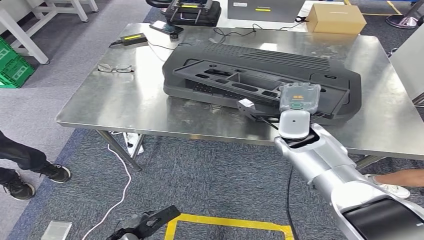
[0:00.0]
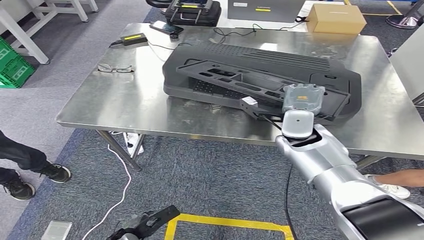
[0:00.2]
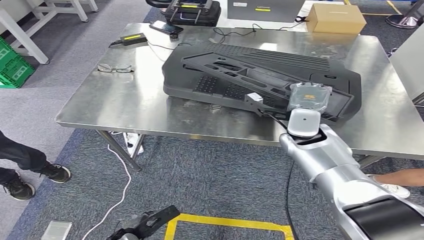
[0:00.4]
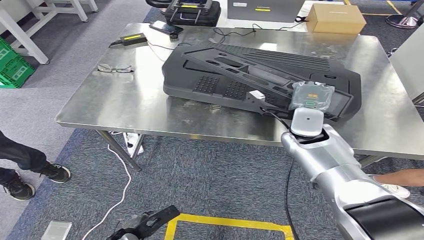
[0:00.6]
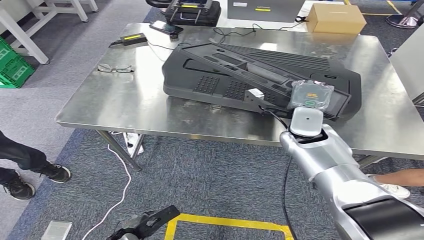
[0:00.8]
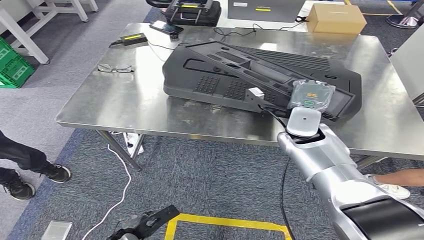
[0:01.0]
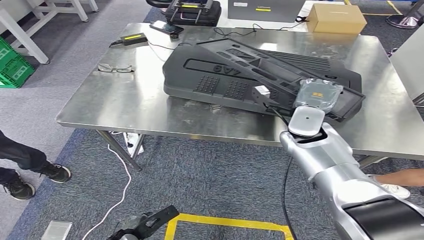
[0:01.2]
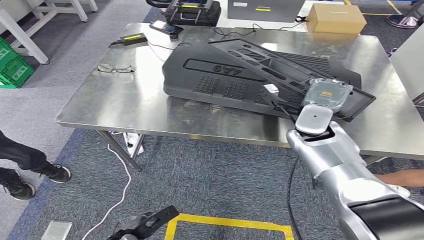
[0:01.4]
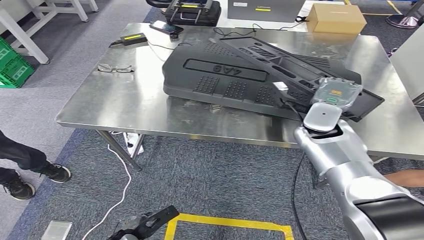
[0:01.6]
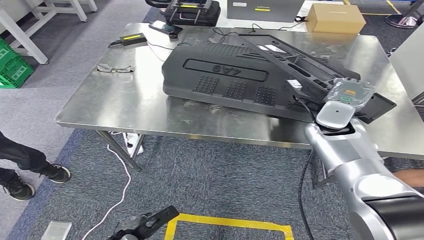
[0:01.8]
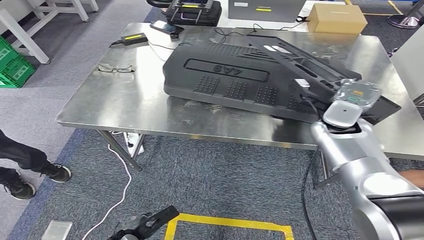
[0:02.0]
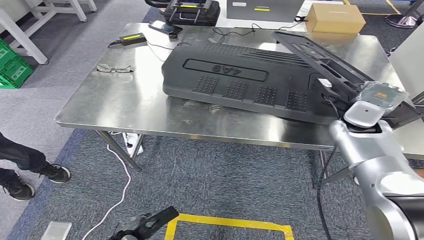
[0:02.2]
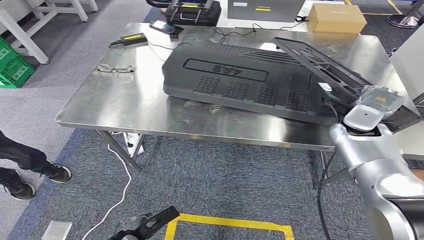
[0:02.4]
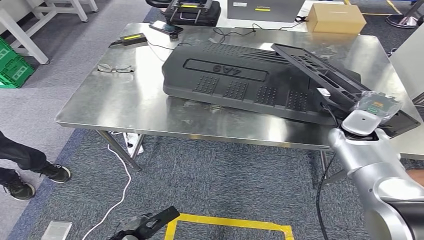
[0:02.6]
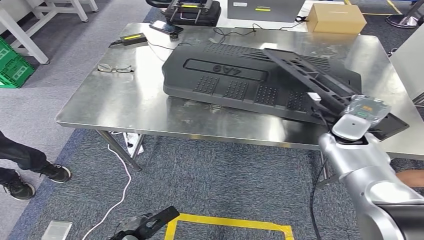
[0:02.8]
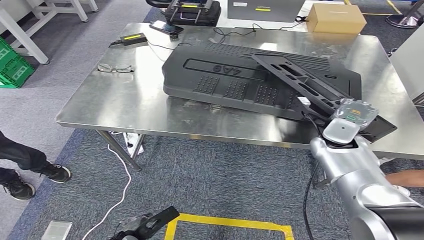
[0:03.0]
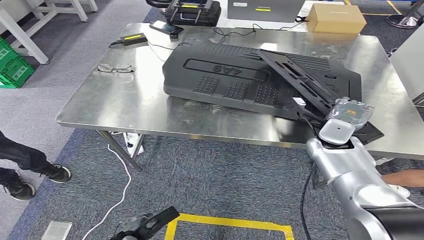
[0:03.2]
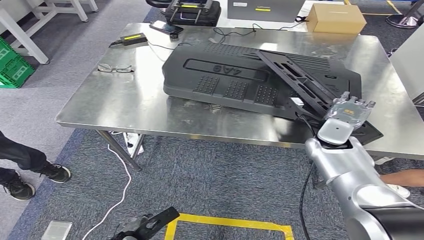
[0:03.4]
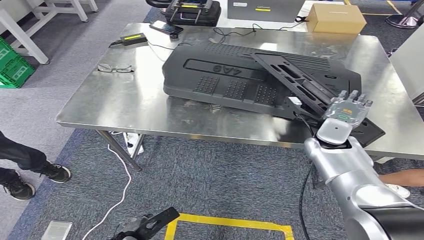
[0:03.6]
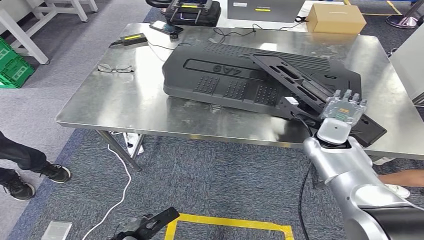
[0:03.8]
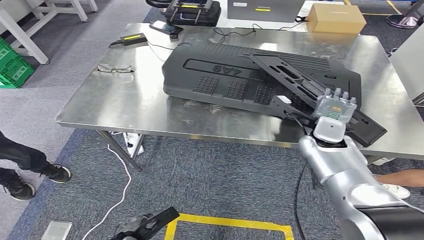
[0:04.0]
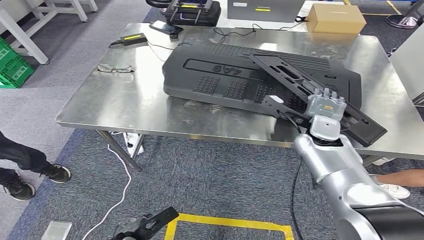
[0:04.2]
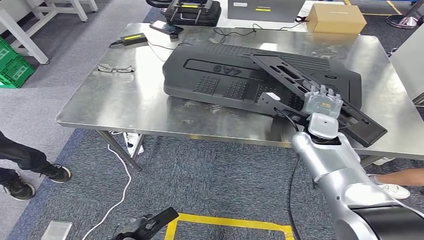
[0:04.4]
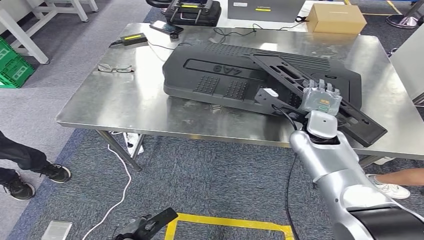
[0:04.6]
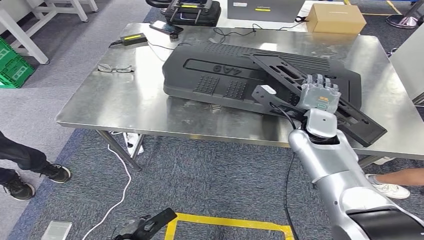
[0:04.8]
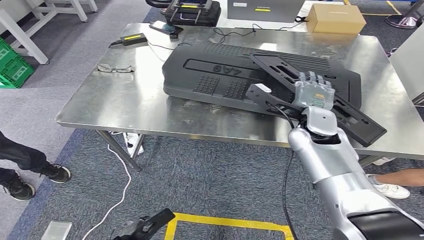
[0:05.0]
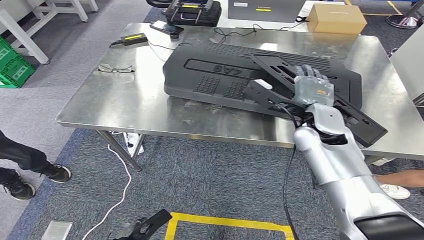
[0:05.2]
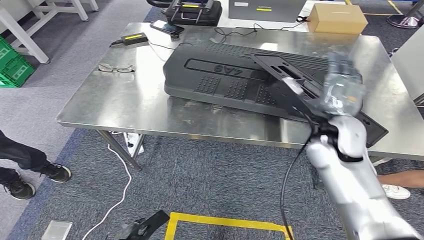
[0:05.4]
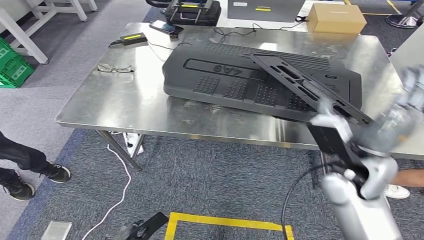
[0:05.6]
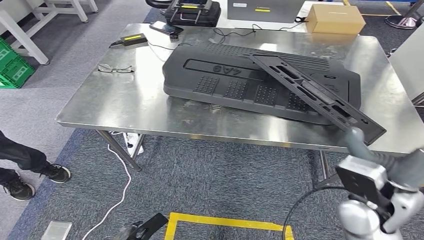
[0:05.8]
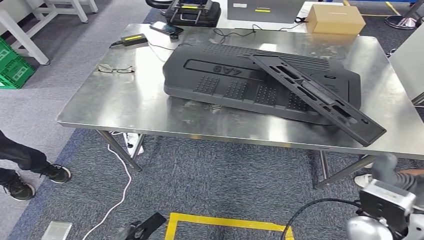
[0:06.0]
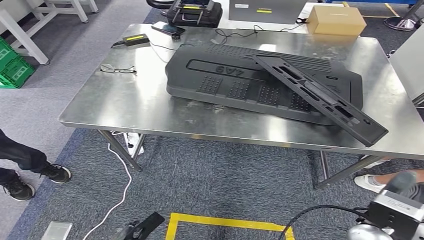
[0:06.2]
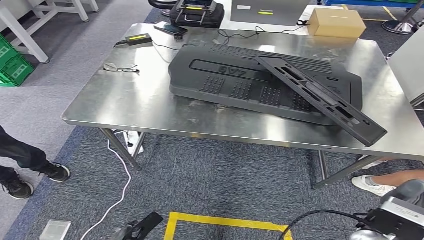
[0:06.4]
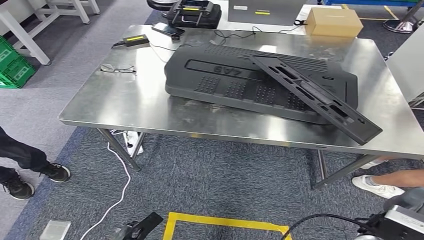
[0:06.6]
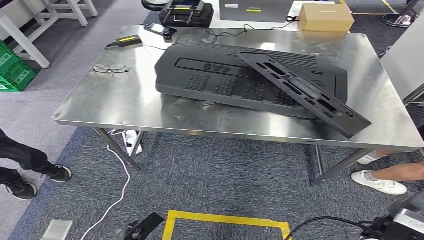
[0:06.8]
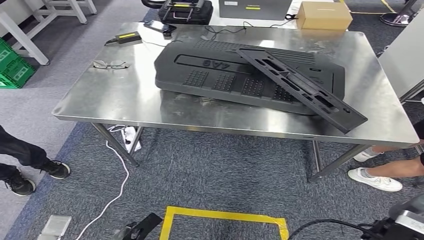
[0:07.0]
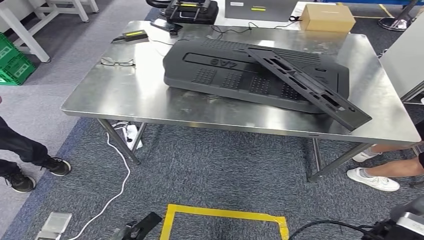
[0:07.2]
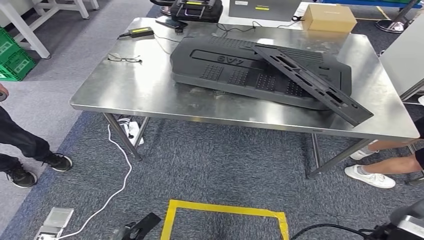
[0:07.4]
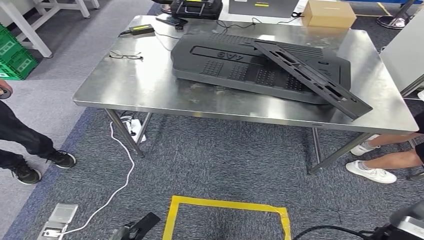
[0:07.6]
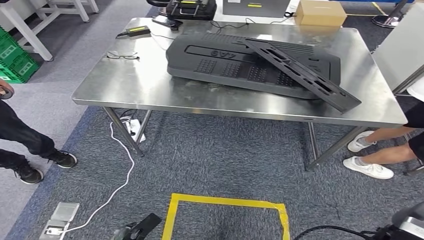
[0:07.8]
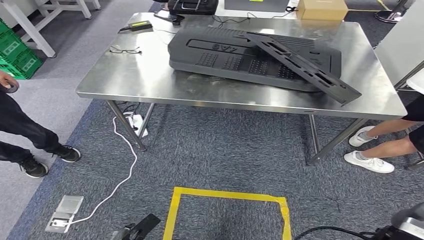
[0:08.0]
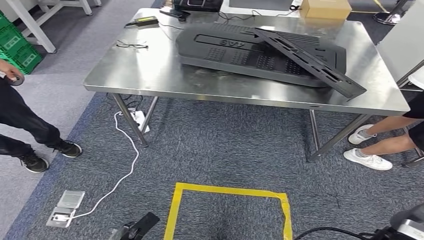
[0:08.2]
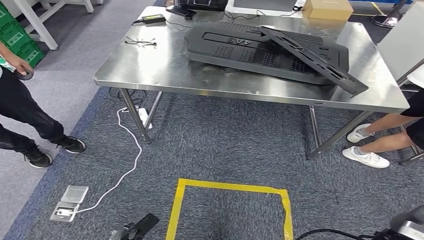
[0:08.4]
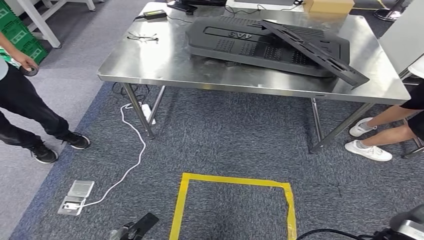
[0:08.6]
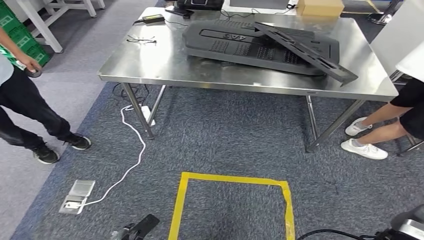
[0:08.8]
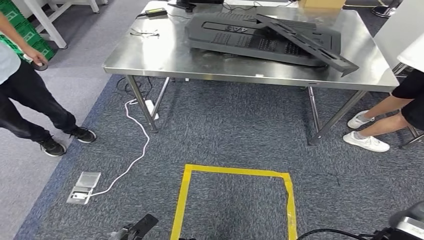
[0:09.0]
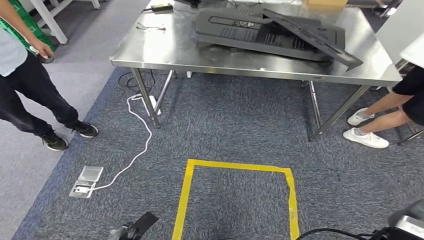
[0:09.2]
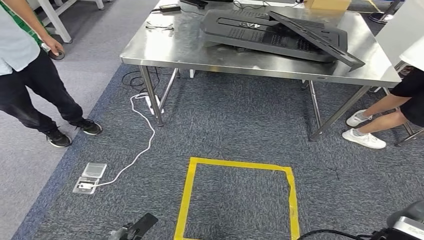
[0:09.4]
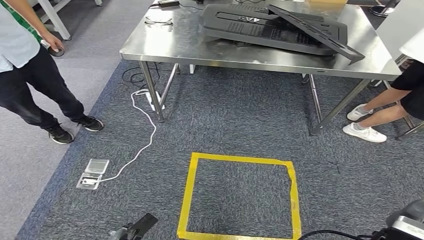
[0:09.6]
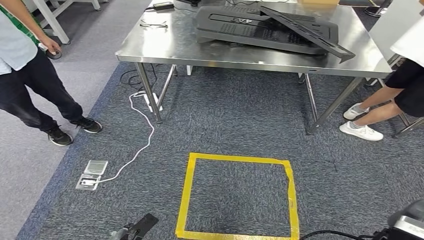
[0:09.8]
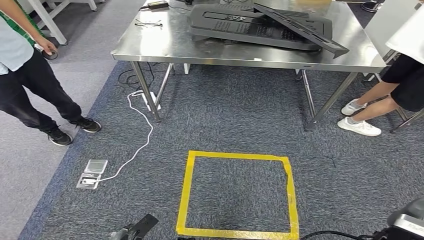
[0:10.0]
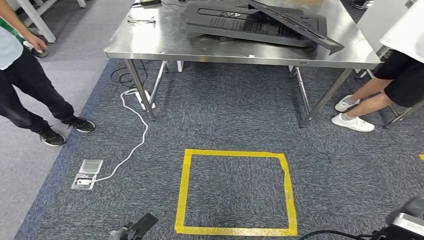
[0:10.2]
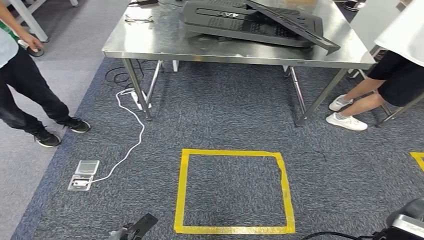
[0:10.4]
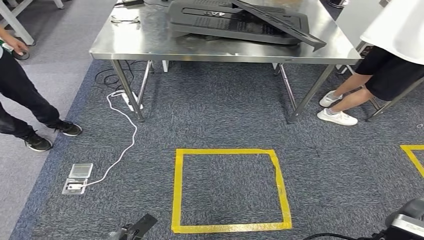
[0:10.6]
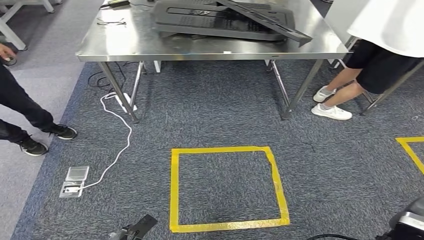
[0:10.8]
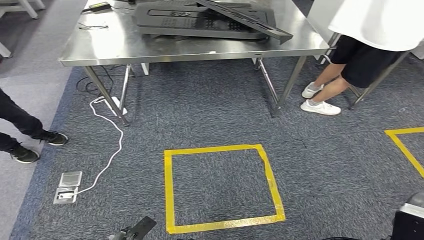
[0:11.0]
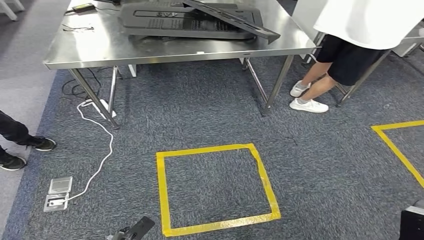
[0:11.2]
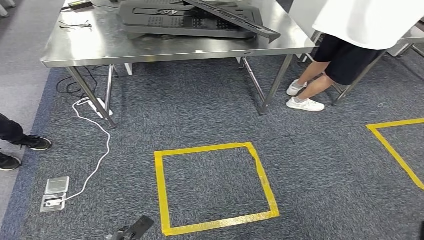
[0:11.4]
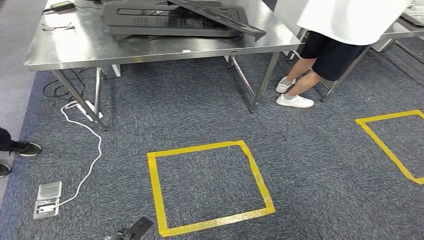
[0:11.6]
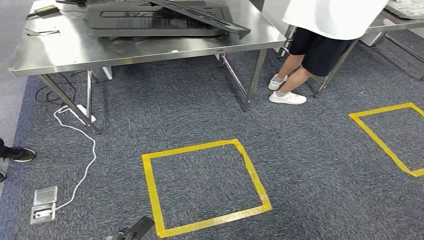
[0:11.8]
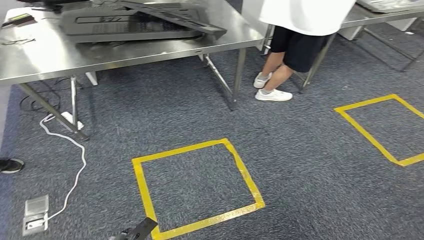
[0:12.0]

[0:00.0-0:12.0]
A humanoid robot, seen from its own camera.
Step, 0:00.0 to 0:05.0: Insert the large material into the corresponding hole on the workbench.
0:00.0 to 0:01.6: The hands move only a little.
0:01.6 to 0:03.0: The right hand moves roughly 5 cm.
0:03.0 to 0:04.4: The right hand moves some 5 cm.
0:04.4 to 0:06.0: The right hand is displaced backward by approximately 20 cm.

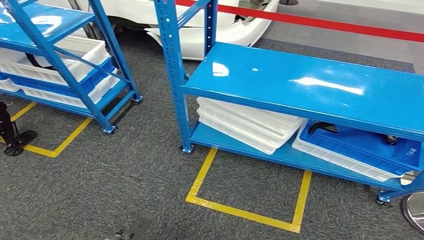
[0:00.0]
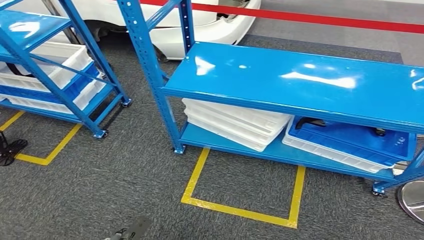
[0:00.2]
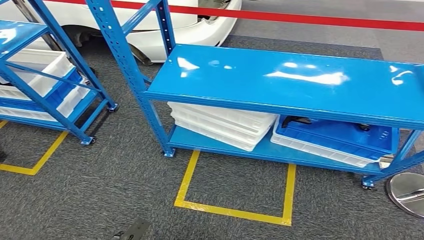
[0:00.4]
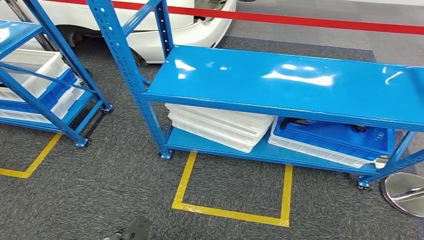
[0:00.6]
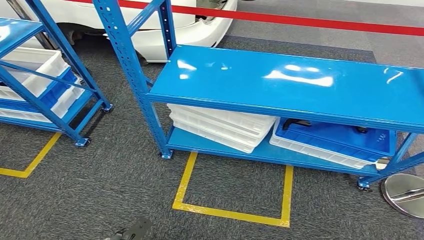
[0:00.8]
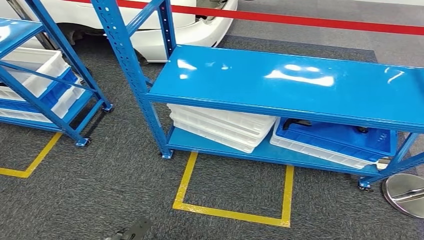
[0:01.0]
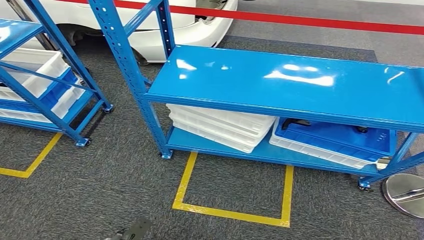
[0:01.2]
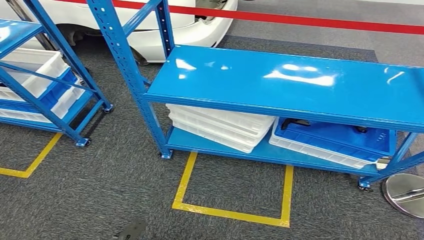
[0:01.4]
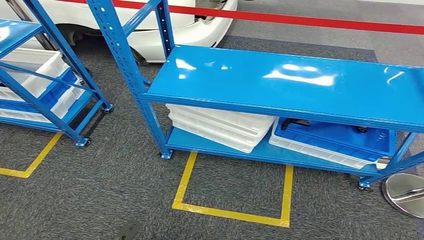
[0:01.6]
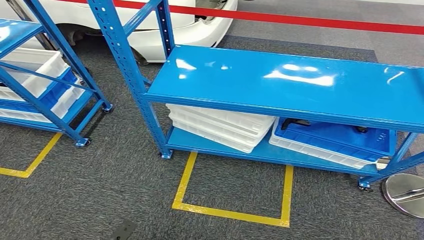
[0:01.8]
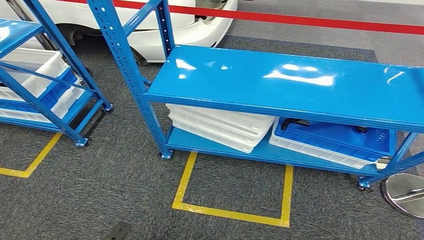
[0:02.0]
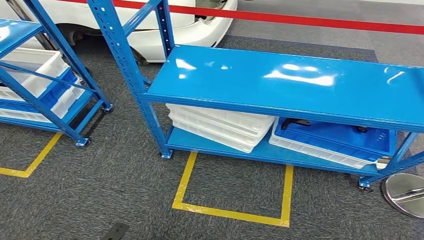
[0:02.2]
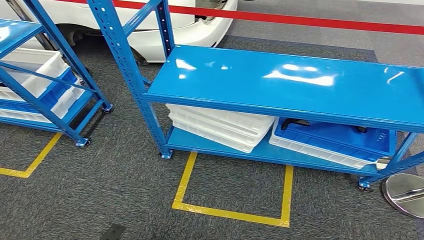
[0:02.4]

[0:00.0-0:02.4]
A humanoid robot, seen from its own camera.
Step, 0:00.0 to 0:02.4: Move to the initial position of the shelf.
0:01.2 to 0:02.4: The left hand is displaced to the left by roughly 5 cm.
